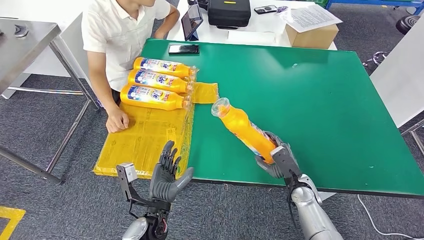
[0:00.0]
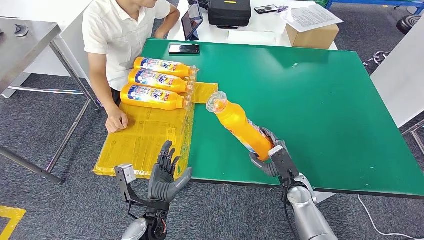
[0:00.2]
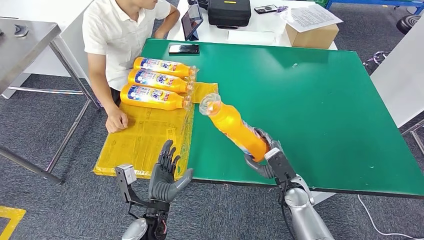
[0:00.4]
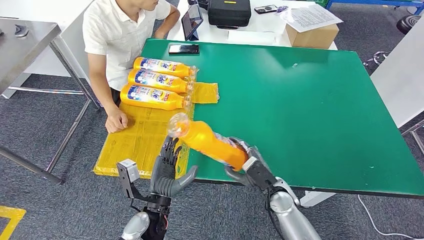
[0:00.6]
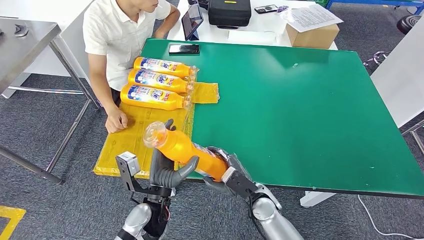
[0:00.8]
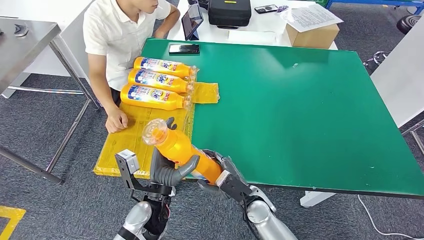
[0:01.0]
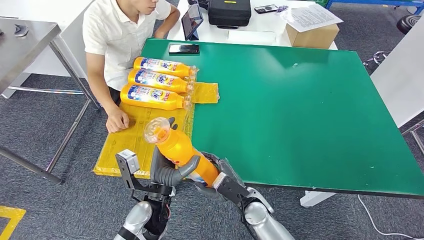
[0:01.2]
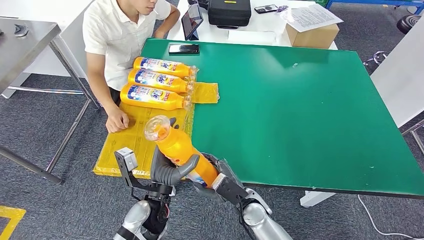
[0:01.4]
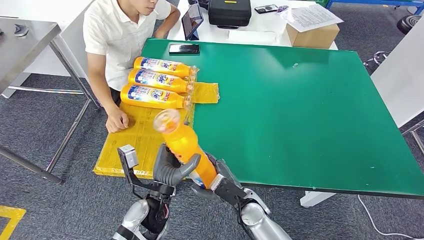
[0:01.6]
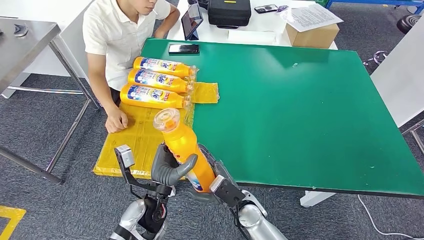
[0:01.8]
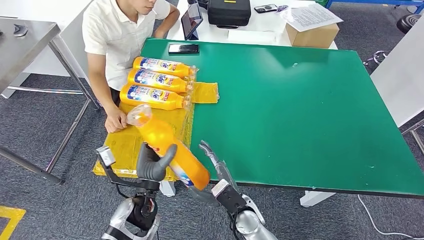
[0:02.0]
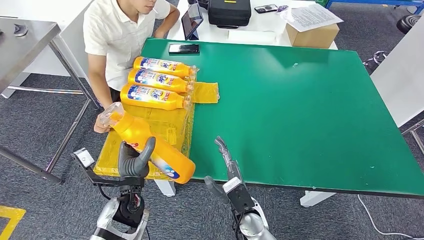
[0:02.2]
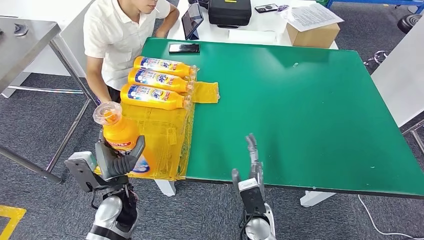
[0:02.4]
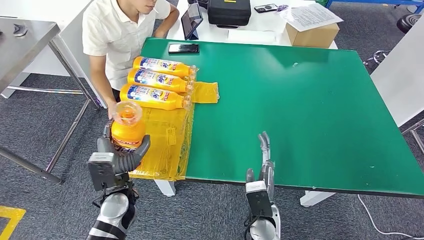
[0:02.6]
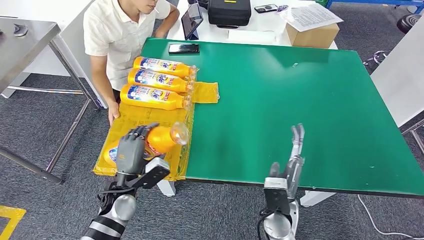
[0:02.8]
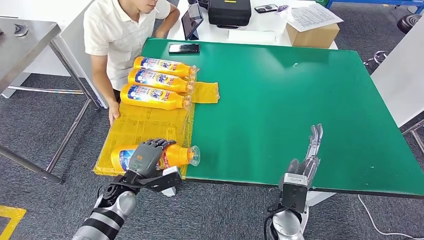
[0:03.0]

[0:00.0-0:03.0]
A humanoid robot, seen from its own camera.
Step, 0:01.2 to 0:03.0: Flip the fast-moving consumer goods bottle to the front side.
0:00.0 to 0:01.6: The right hand moves to the left, approximately 15 cm.
0:01.6 to 0:03.0: The right hand heads to the right and upward, covering some 10 cm. The left hand heads to the left and forward, covering about 10 cm.

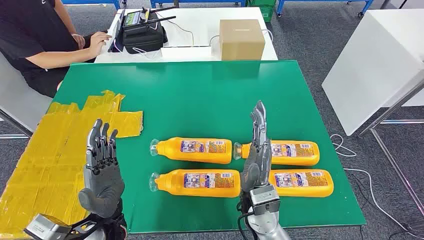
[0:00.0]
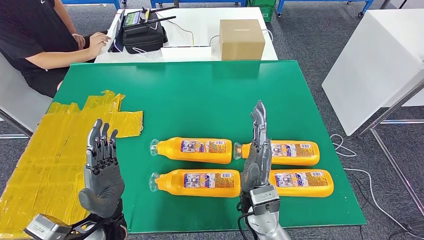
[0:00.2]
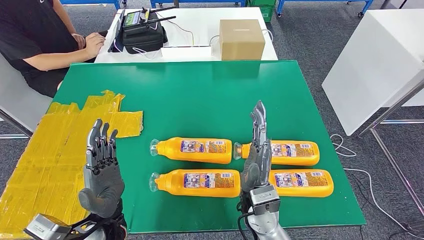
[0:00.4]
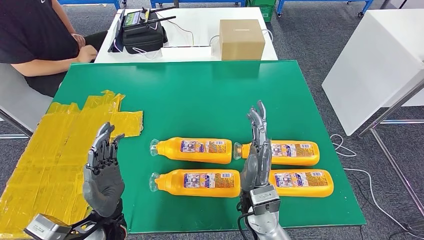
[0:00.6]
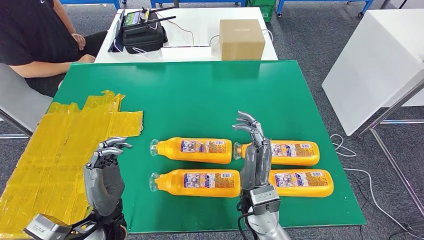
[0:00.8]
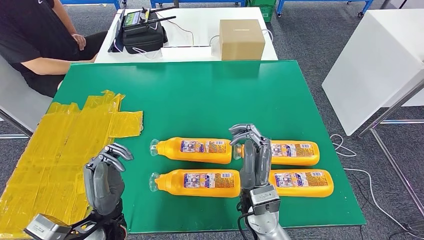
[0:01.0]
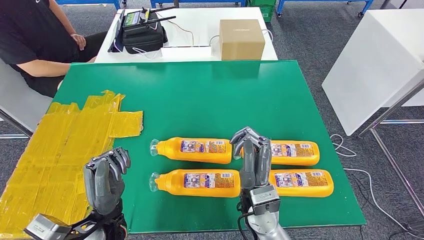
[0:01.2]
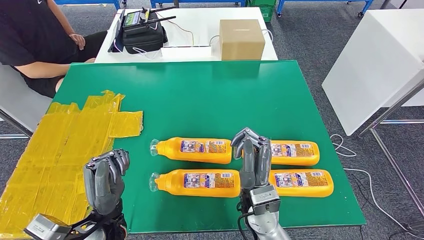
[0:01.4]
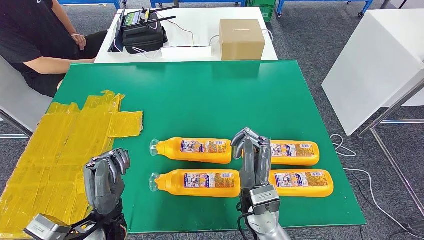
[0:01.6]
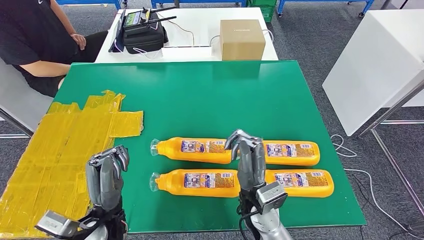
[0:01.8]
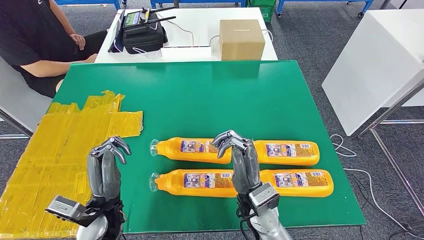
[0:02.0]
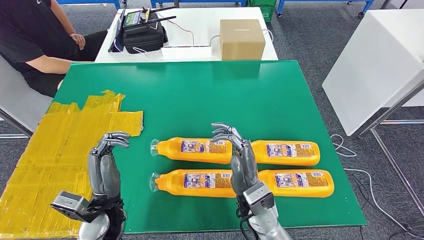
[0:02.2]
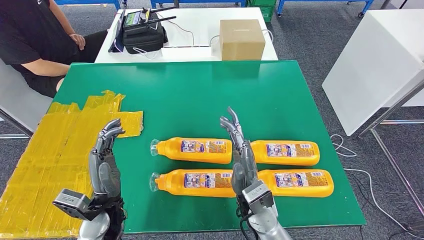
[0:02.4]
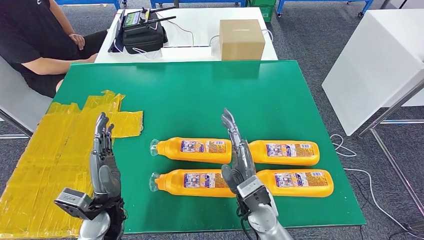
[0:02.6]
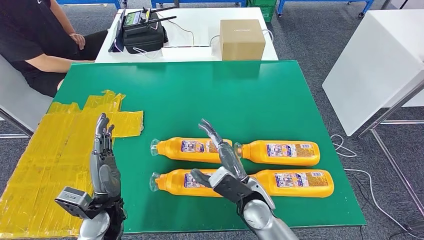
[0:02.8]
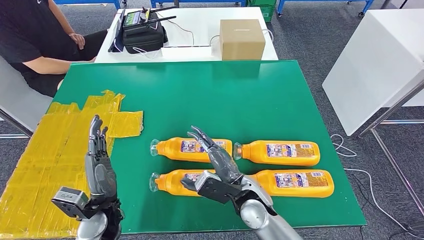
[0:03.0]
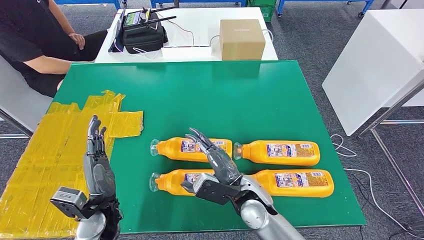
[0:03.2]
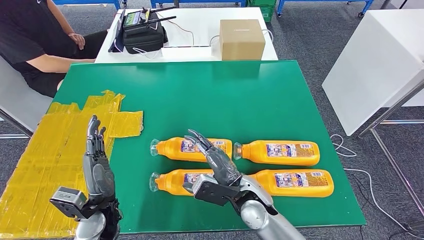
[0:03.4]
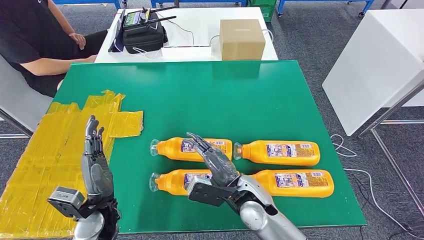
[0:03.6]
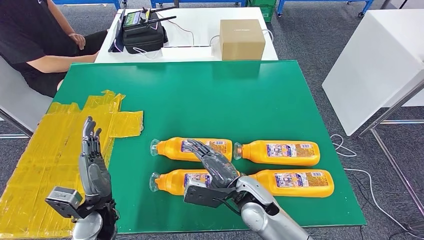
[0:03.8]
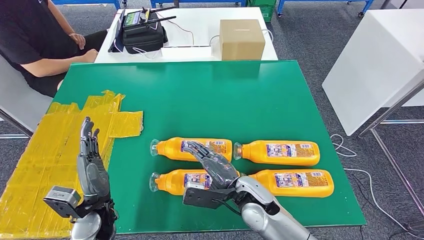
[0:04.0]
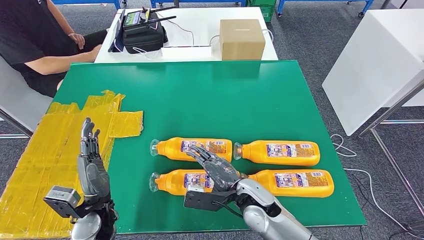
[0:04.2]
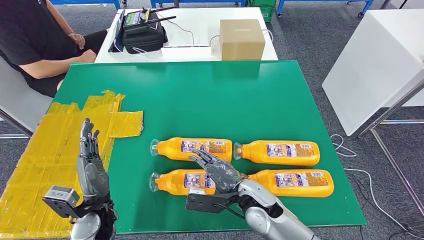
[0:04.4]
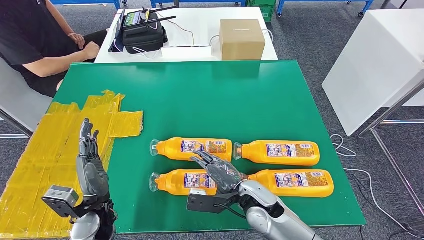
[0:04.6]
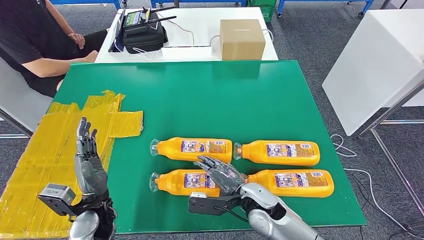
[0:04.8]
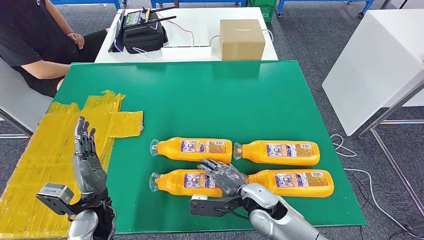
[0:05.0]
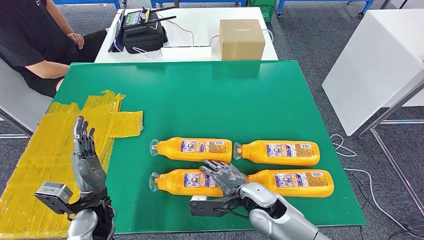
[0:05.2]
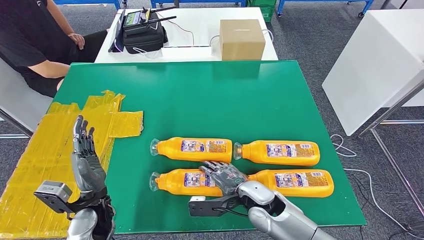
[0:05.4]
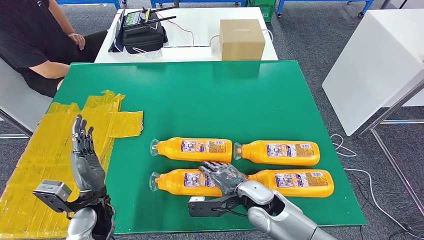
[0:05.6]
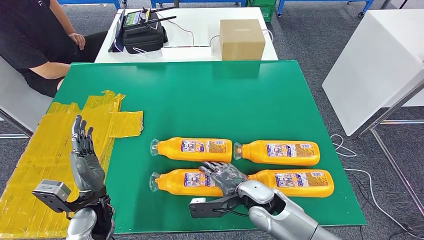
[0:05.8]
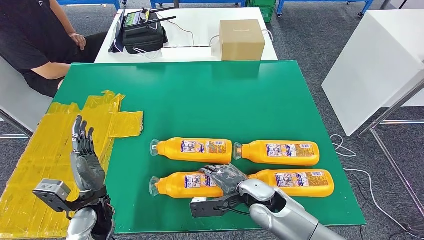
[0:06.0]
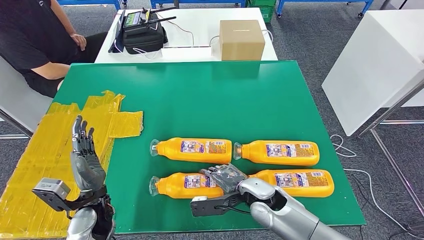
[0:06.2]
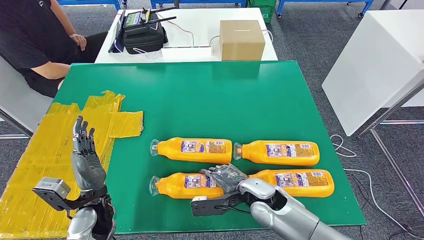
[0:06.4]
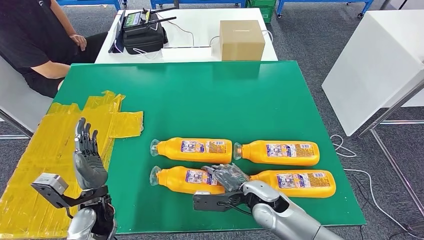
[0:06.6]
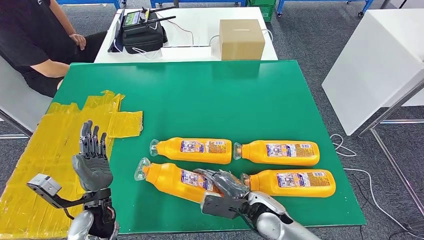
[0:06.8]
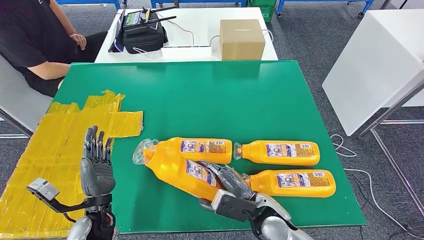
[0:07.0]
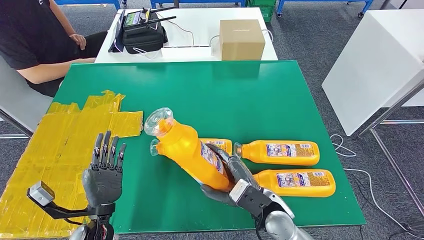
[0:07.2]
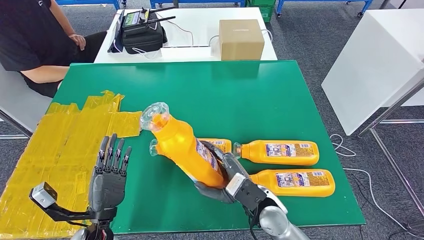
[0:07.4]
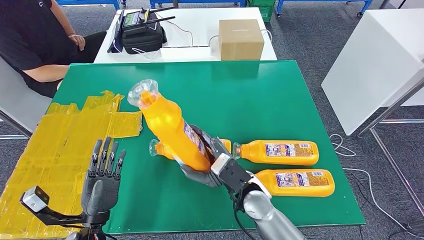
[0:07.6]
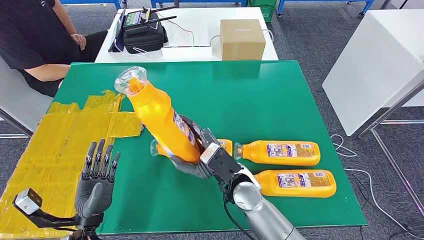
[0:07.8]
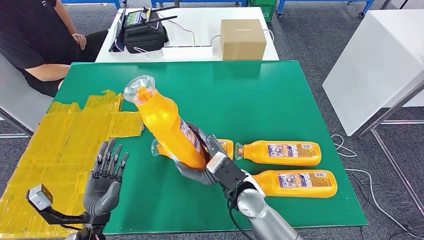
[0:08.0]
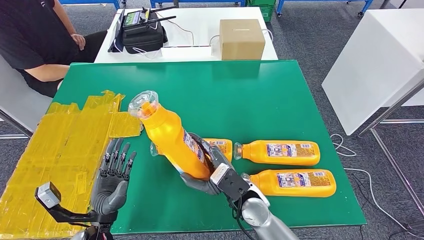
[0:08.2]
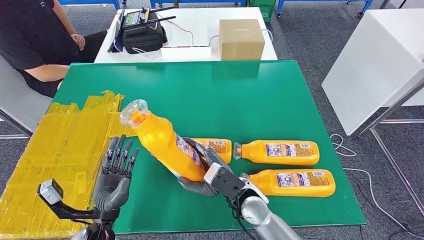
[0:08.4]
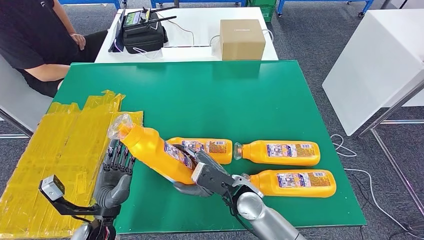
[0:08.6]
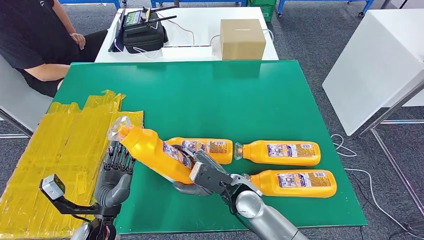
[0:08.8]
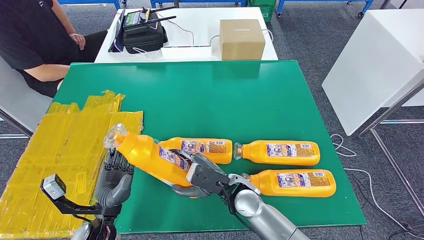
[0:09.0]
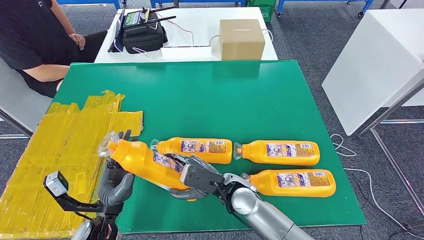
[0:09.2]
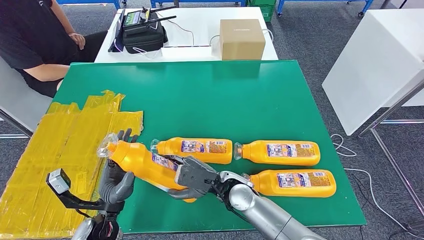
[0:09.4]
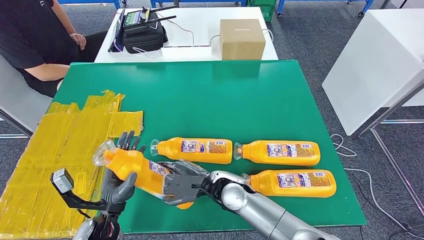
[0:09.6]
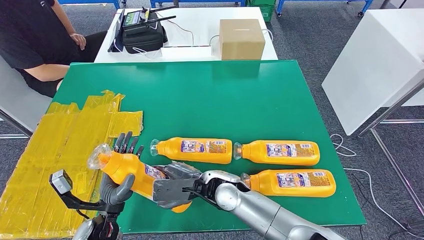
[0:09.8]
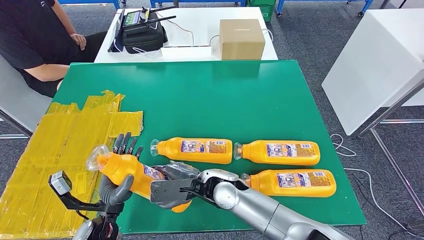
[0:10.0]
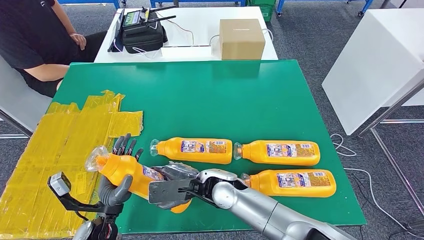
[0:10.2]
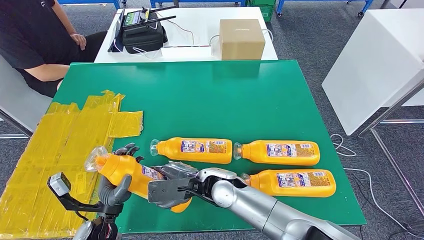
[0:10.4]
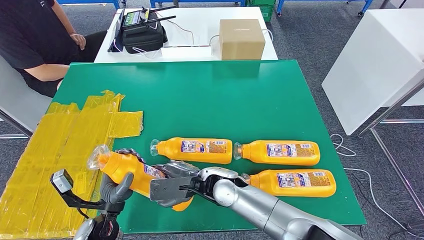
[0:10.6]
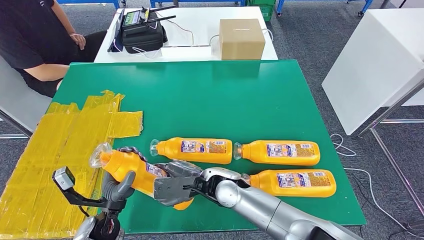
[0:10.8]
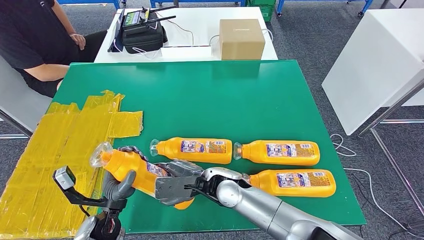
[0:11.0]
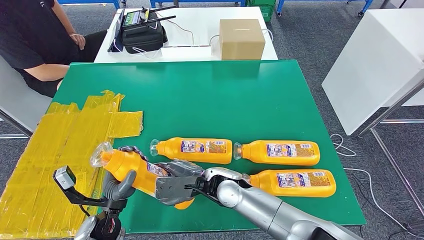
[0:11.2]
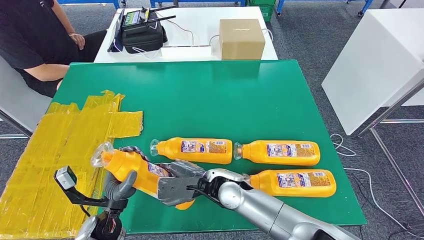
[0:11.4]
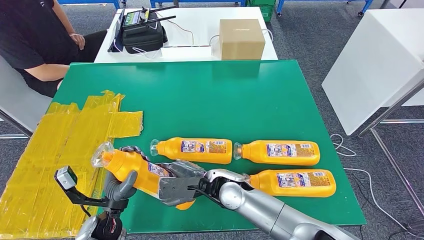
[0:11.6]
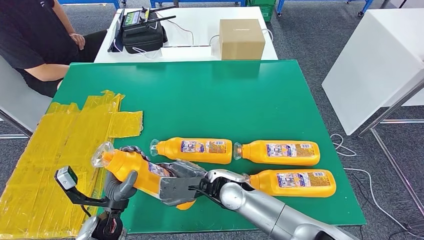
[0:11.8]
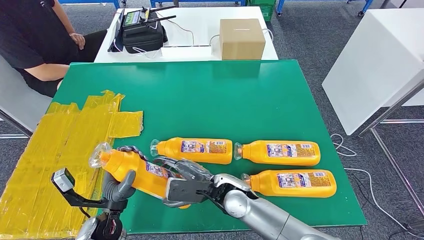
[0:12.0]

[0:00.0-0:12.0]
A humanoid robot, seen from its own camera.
Step, 0:00.0 to 0:07.8: Take the fast-moving consumer goods bottle from the table.
0:01.6 to 0:03.0: The left hand moves approximately 5 cm.
0:06.0 to 0:07.6: The right hand shifts about 5 cm upward. Meanwhile the left hand changes place by roughly 5 cm.
0:09.0 to 0:10.4: The right hand travels to the left by approximately 5 cm.
0:10.4 to 0:12.0: The hands move only a little.

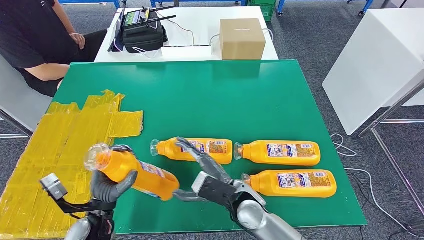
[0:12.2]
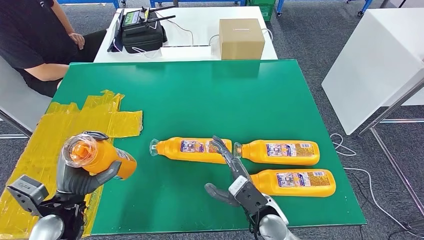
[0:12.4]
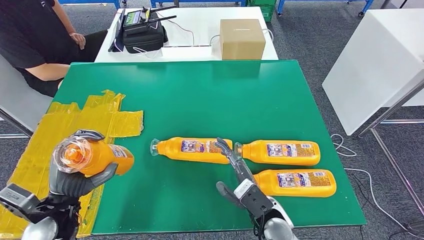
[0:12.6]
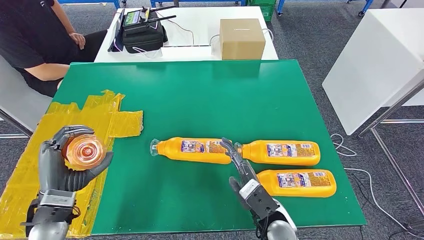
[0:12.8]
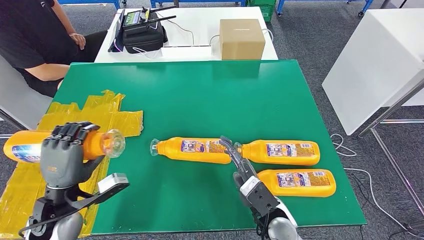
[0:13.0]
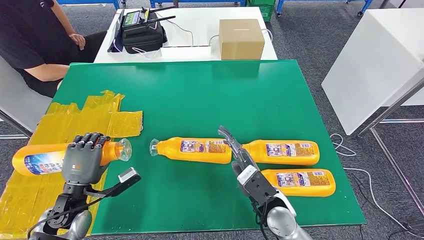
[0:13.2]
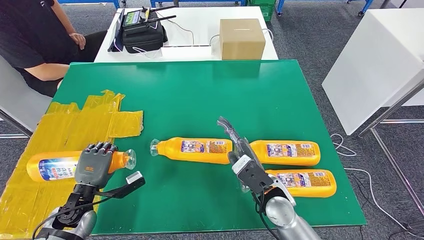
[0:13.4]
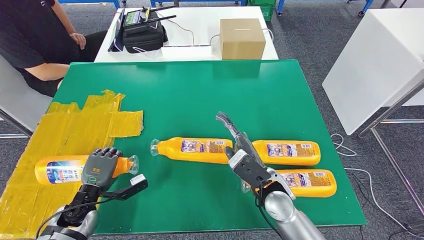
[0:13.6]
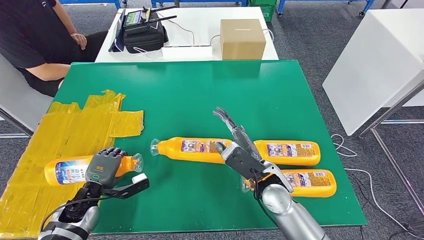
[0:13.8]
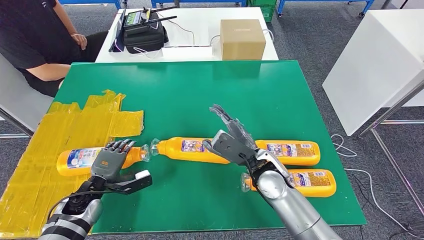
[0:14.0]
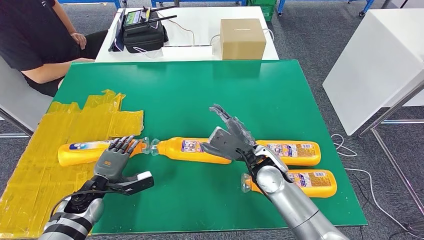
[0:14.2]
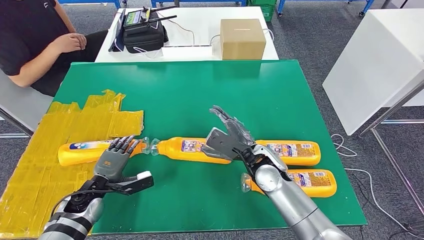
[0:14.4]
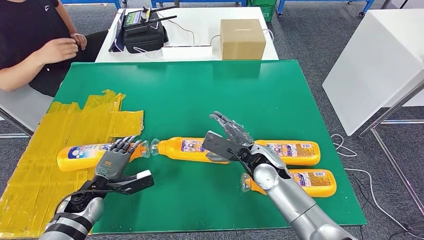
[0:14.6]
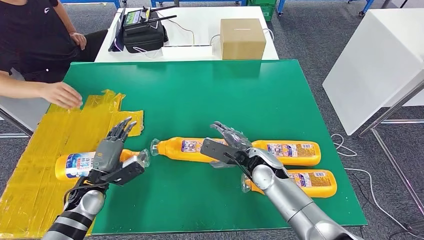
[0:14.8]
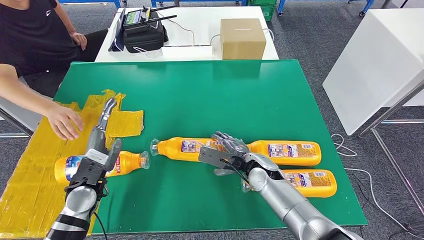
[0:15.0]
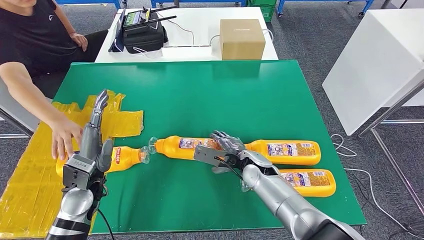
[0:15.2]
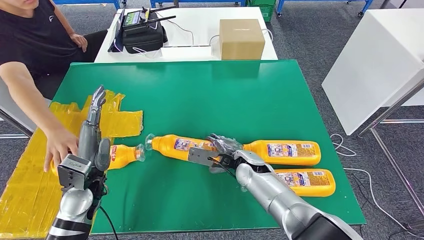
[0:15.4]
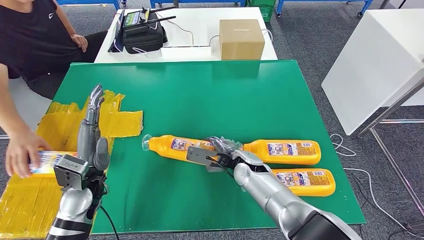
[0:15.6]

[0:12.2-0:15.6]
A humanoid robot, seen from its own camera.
Step, 0:12.2 to 0:14.2: Flip the fast-moving consumer goods bottle to the front side.
0:12.2 to 0:13.8: The left hand is displaced to the left and forward by about 10 cm, and goes upward and returns, approximately 10 cm each way. Meanwhile the right hand heads to the right, covering approximately 5 cm.
